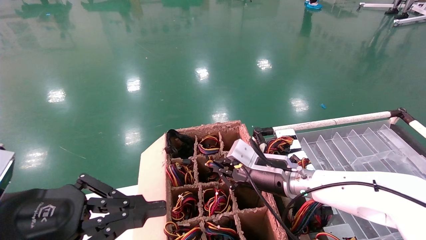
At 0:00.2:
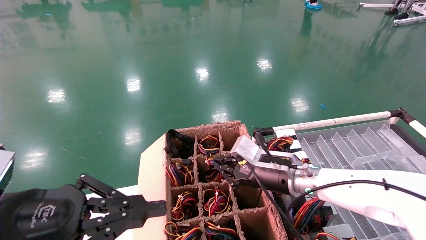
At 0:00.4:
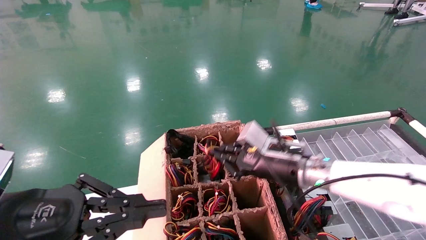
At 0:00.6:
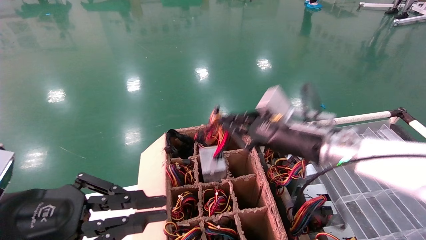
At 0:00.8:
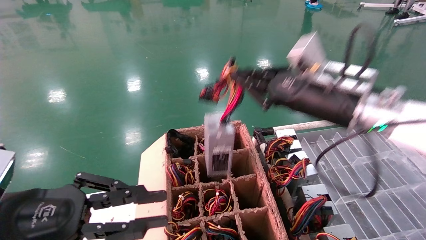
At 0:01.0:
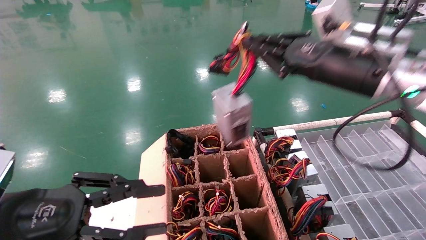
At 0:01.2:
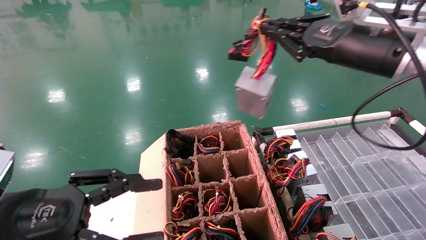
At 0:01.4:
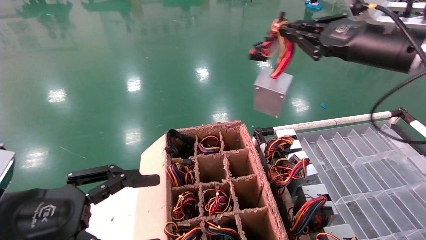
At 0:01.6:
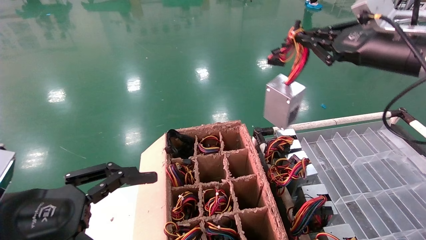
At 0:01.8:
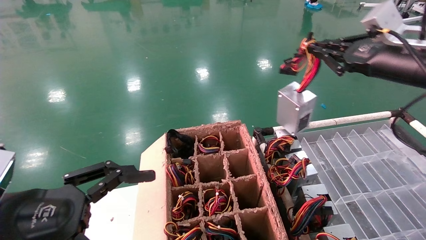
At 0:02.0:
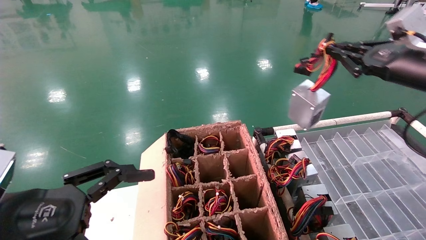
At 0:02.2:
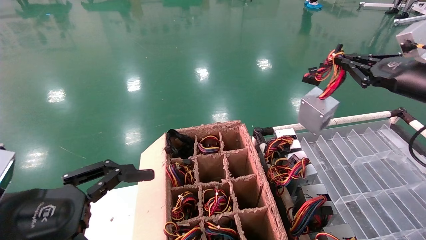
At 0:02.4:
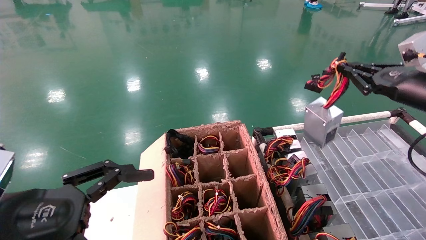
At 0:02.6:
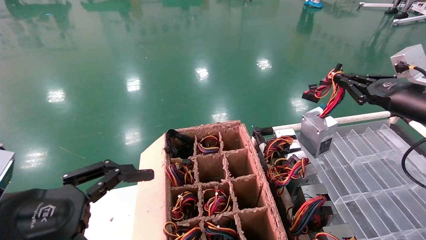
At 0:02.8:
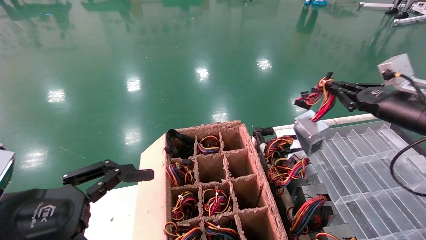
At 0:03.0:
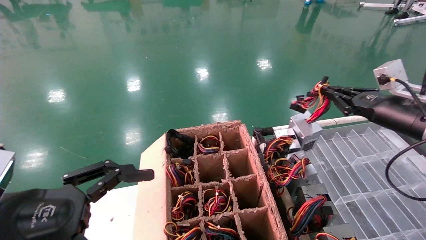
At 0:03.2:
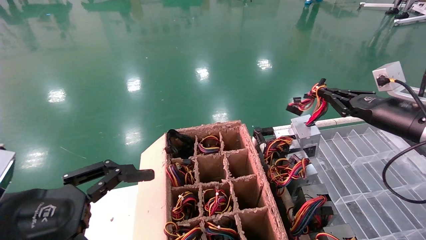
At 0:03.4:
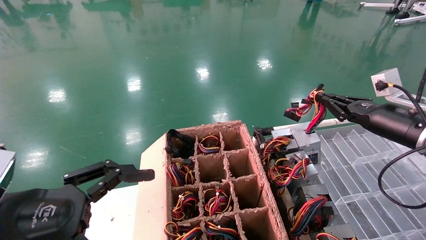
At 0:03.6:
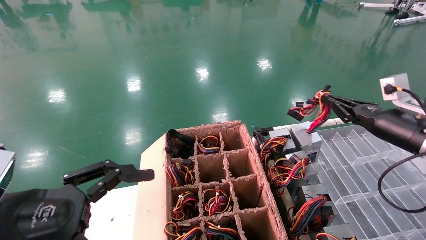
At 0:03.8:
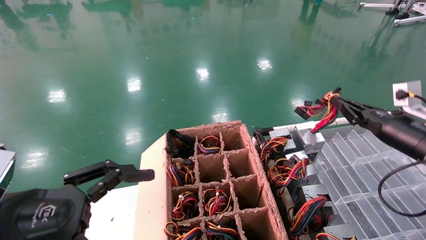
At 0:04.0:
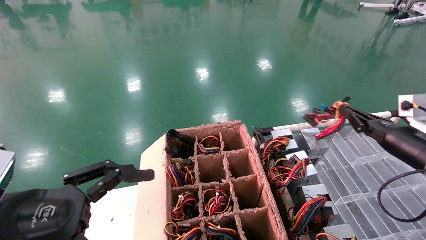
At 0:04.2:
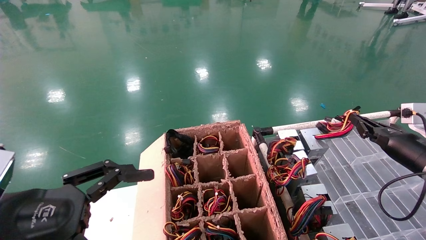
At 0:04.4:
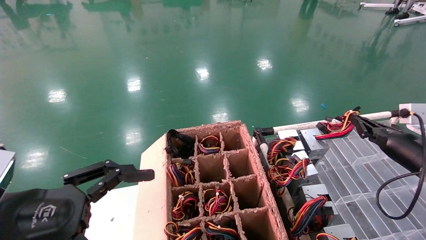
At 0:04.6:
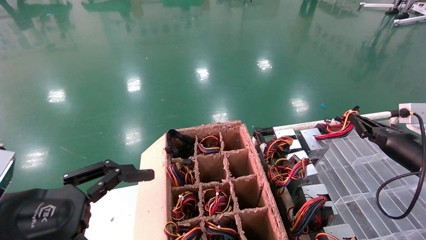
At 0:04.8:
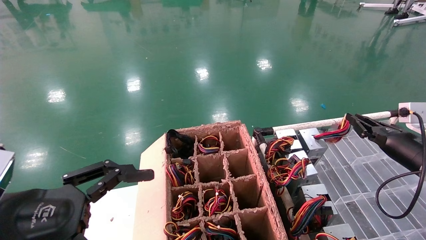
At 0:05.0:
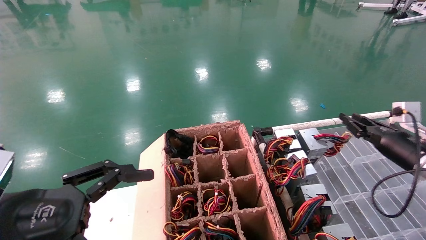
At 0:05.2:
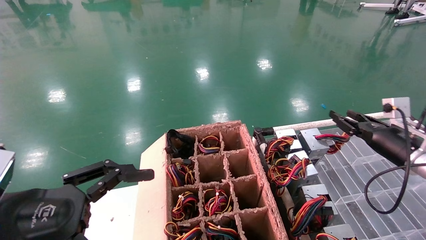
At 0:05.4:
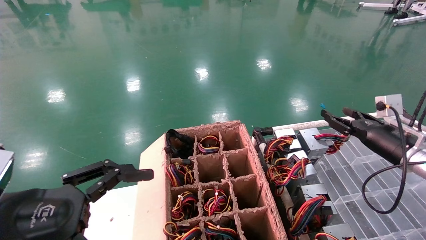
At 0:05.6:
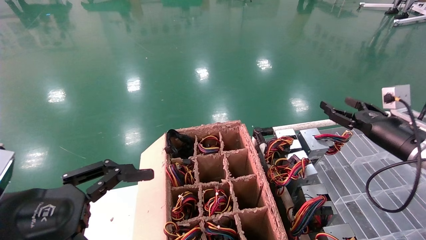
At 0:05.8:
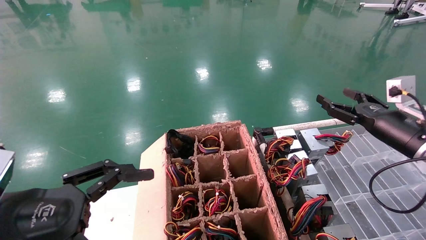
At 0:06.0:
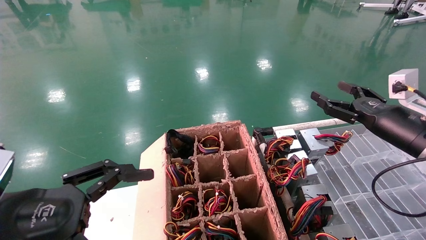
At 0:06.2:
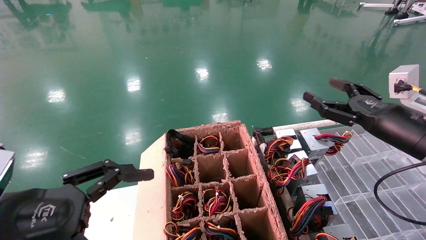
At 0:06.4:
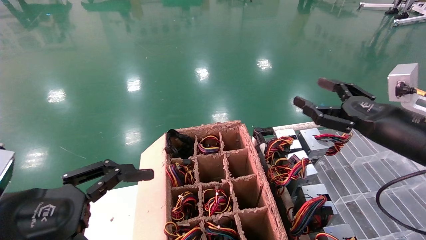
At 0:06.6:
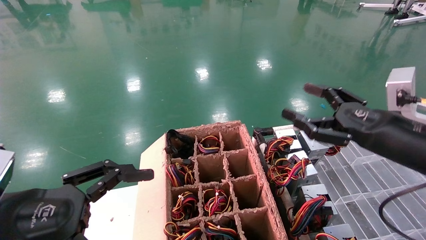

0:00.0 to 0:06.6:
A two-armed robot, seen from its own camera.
Step, 0:00.2 to 0:04.8: Place the power supply on the operating table.
0:00.0 to 0:01.6: The right gripper is displaced upward and to the right by about 30 cm. Meanwhile the left gripper opens its fingers.
0:01.6 to 0:03.2: The right gripper travels downward and to the right by about 15 cm.
0:03.2 to 0:05.0: The right gripper heads downward, covering roughly 10 cm.
0:05.0 to 0:06.6: The right gripper is displaced backward, to the left and upward by roughly 20 cm, and opens.
